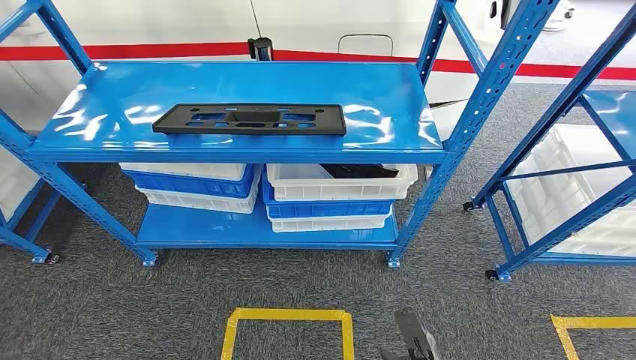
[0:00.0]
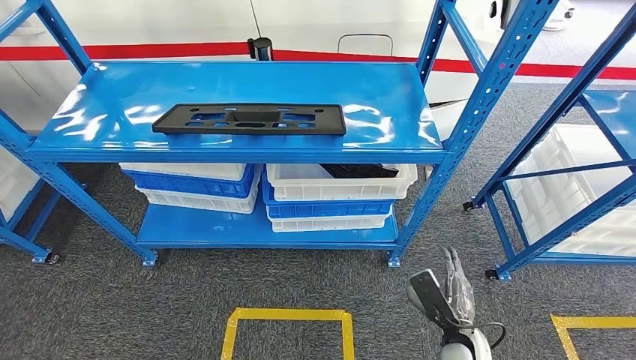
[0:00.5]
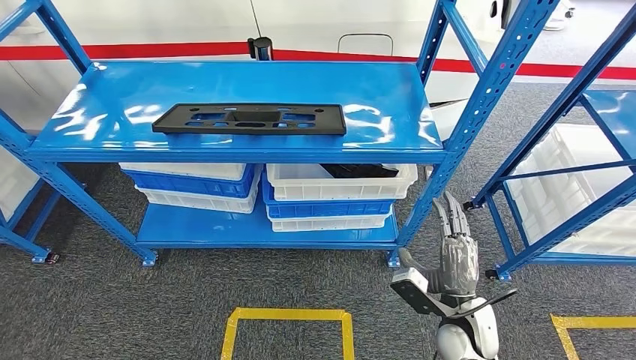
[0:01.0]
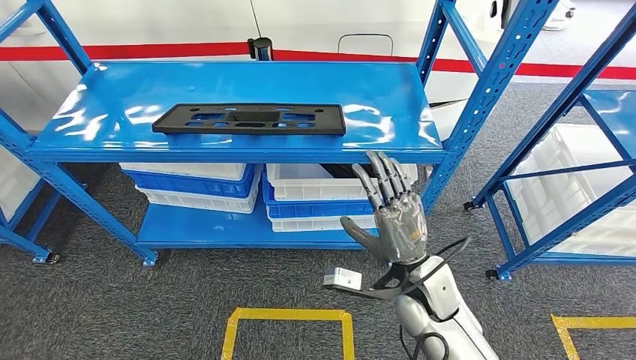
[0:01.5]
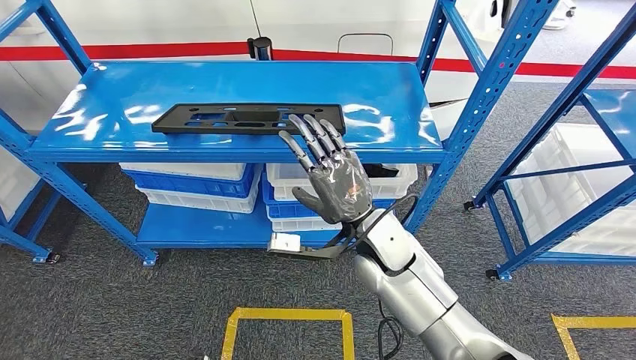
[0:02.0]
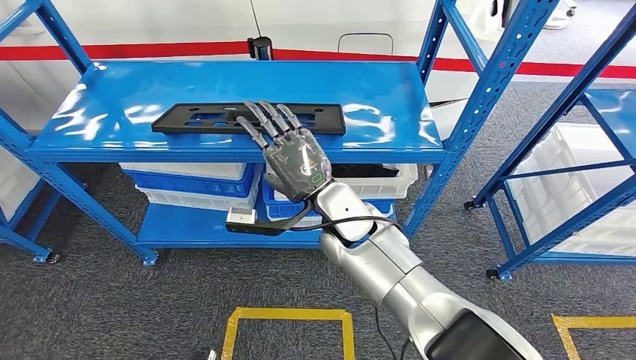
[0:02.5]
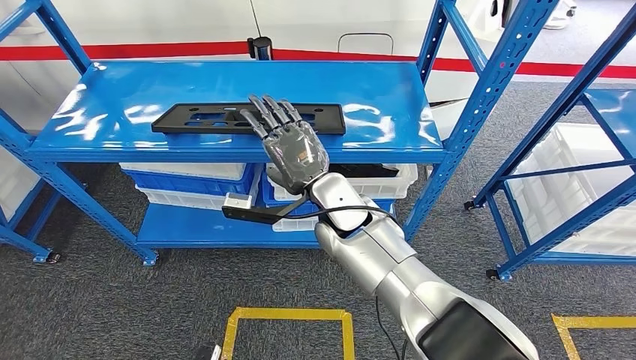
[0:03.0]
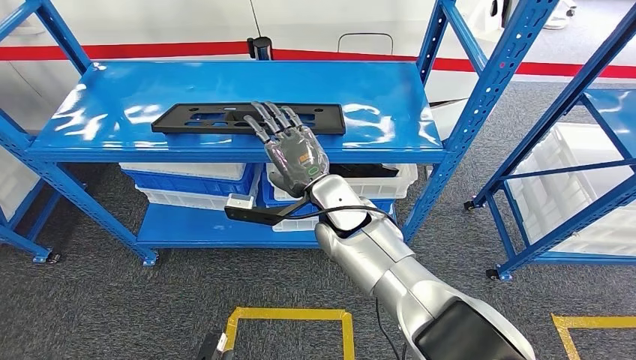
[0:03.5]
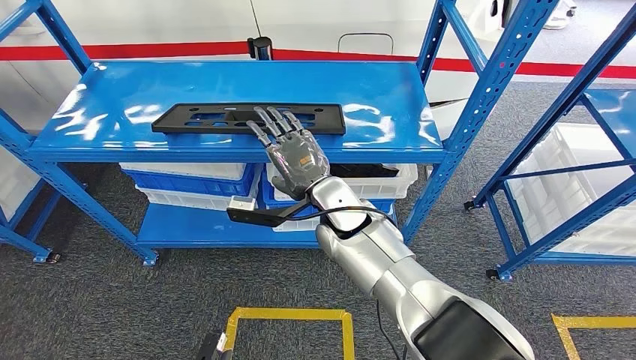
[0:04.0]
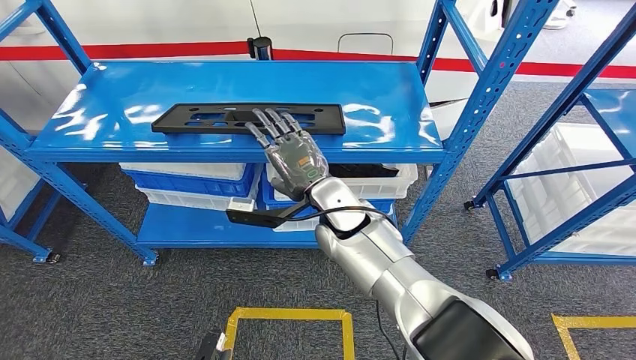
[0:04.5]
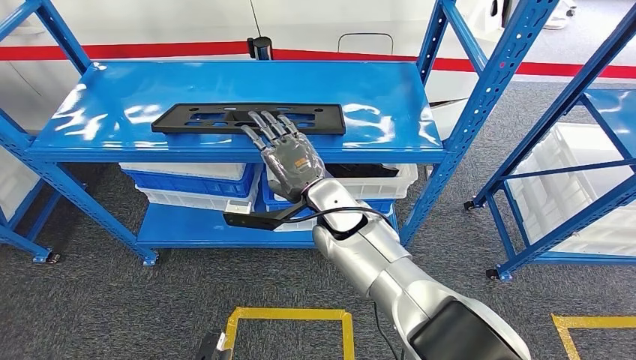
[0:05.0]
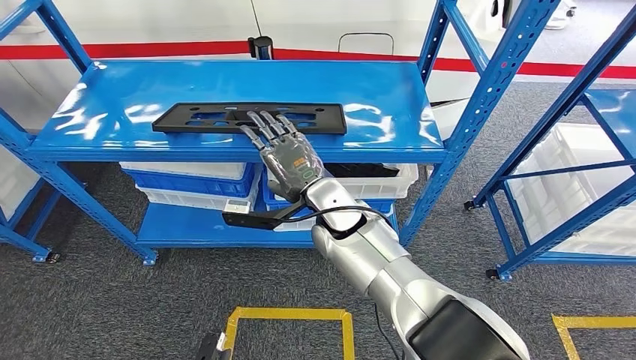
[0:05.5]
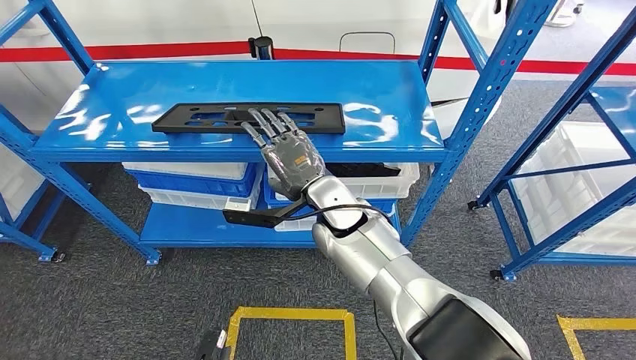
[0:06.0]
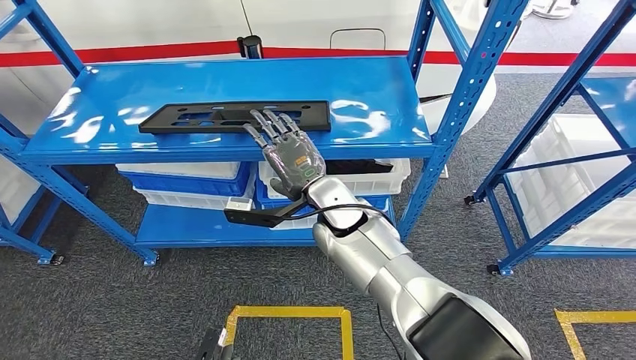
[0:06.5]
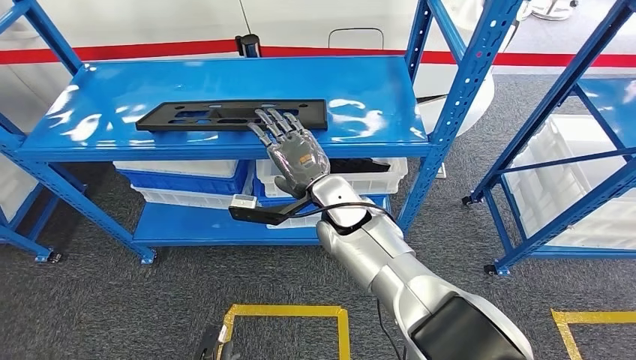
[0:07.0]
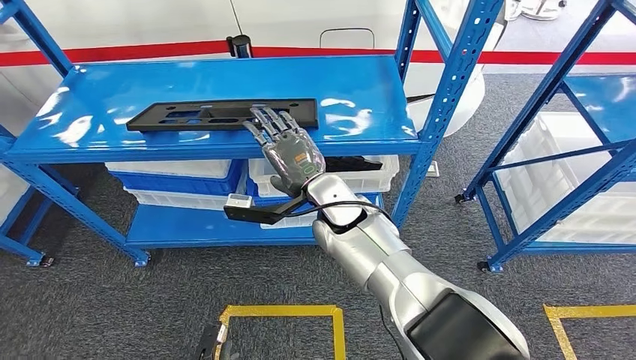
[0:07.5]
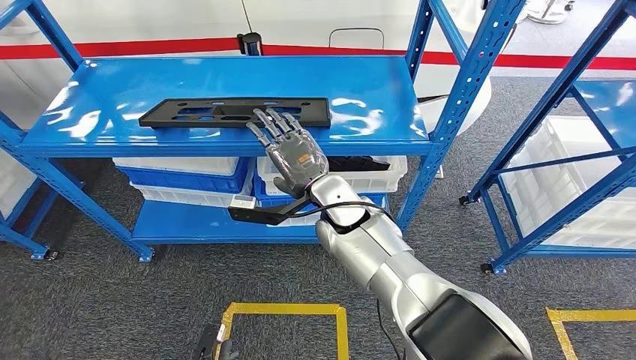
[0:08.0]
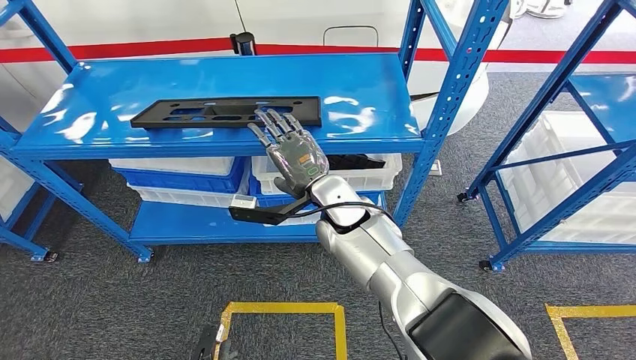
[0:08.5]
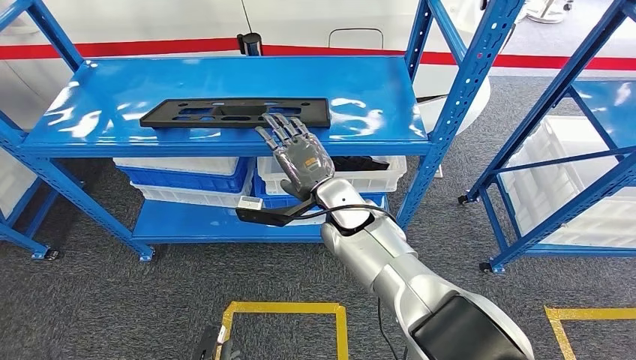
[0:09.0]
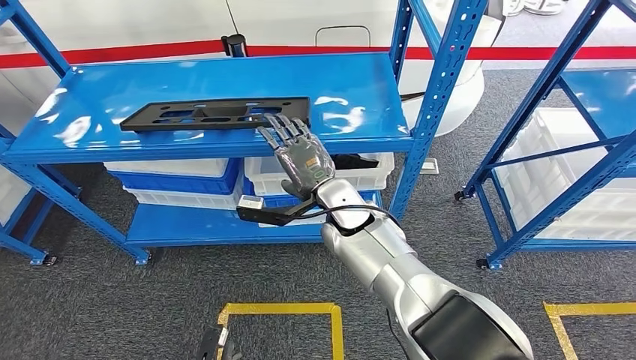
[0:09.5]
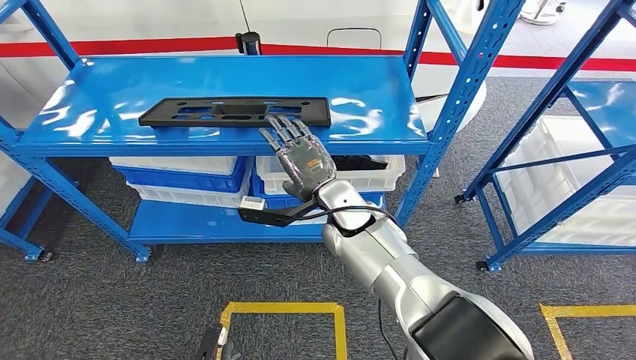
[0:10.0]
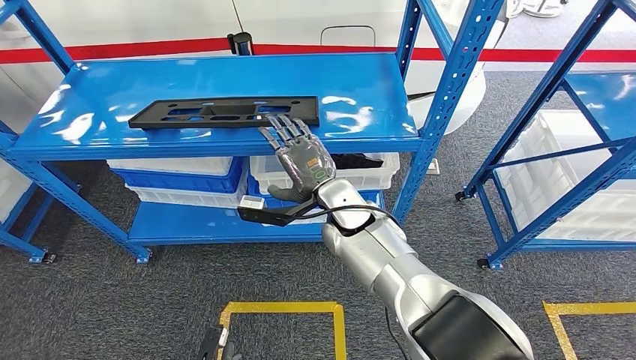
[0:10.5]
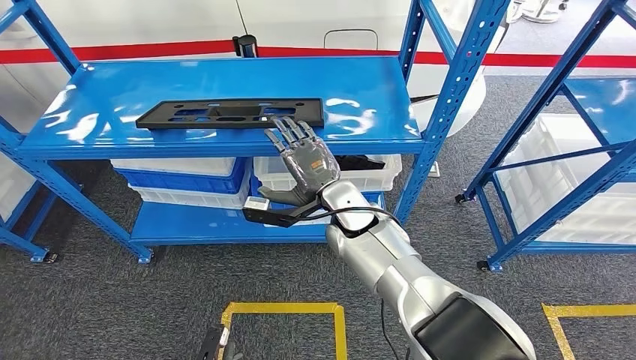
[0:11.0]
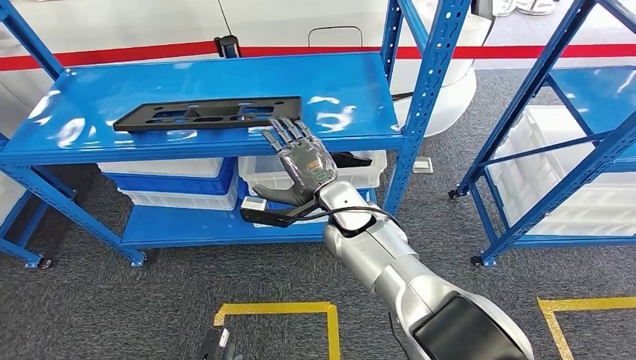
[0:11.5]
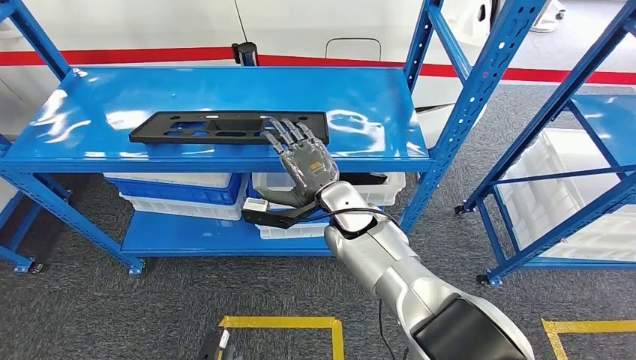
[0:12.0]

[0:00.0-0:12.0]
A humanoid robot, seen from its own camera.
0:02.0 to 0:04.0: The right hand shifts some 5 cm to the left.
0:04.0 to 0:06.0: Both hands stay put.
0:08.0 to 0:10.0: The hands make only small movements.

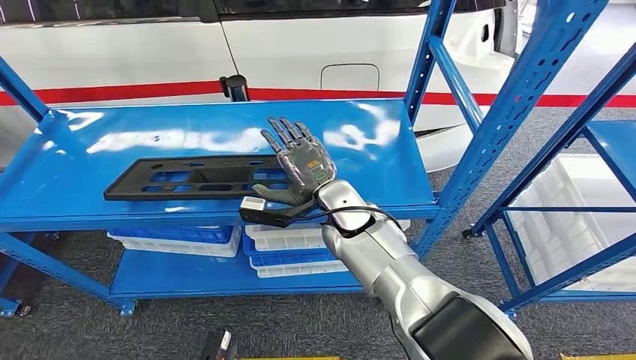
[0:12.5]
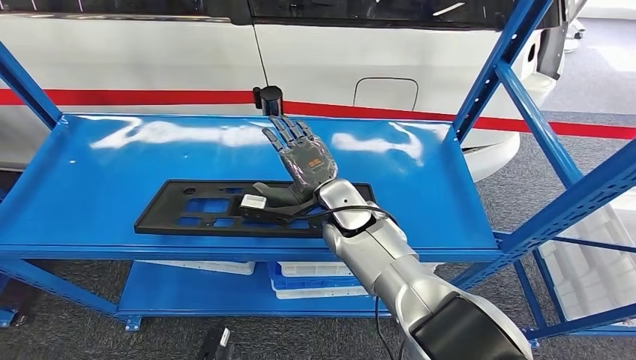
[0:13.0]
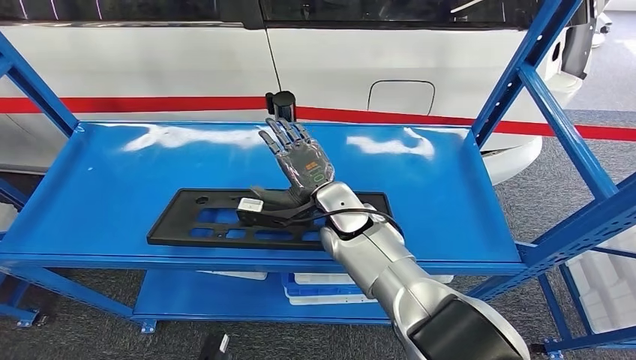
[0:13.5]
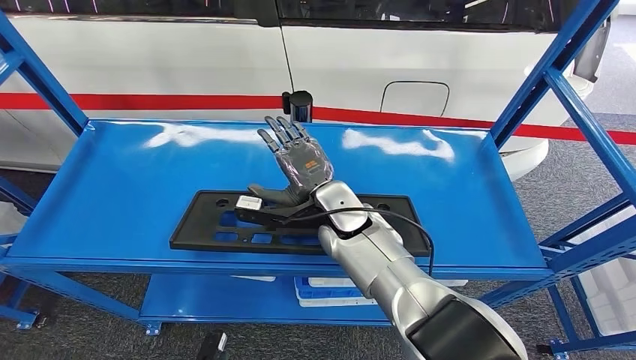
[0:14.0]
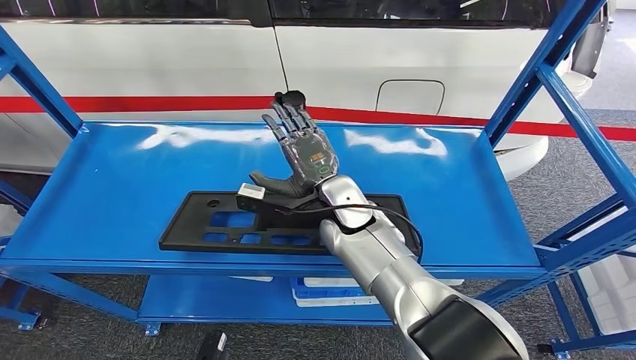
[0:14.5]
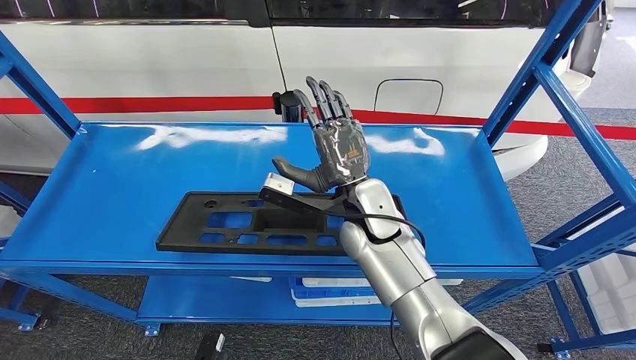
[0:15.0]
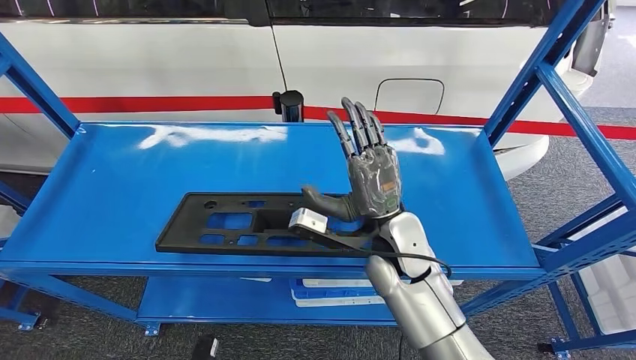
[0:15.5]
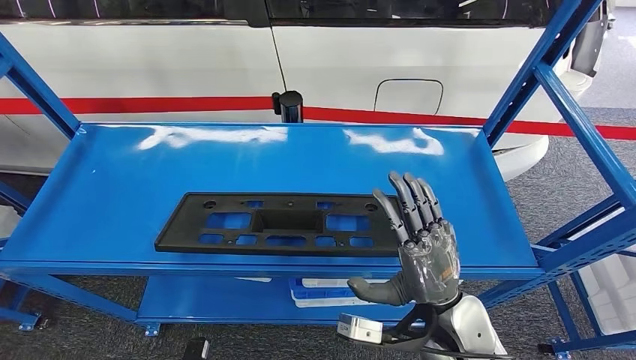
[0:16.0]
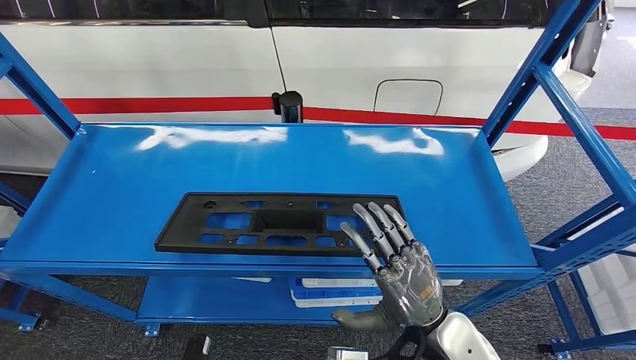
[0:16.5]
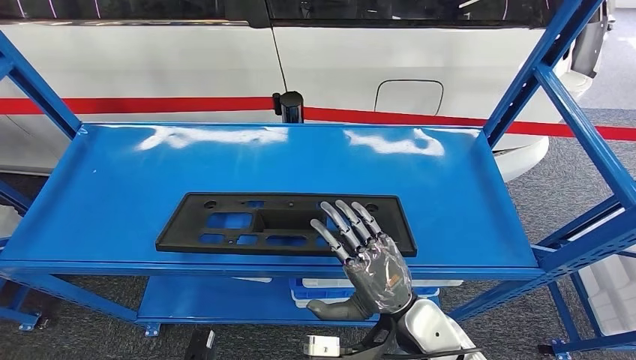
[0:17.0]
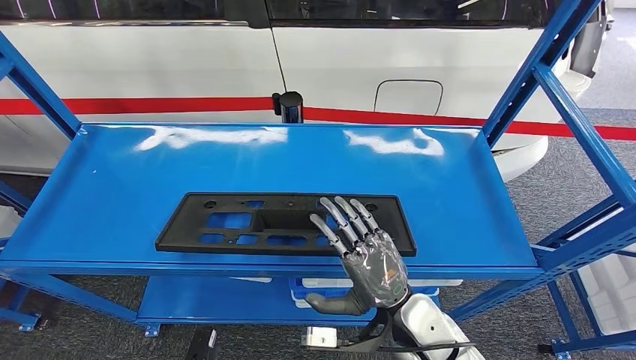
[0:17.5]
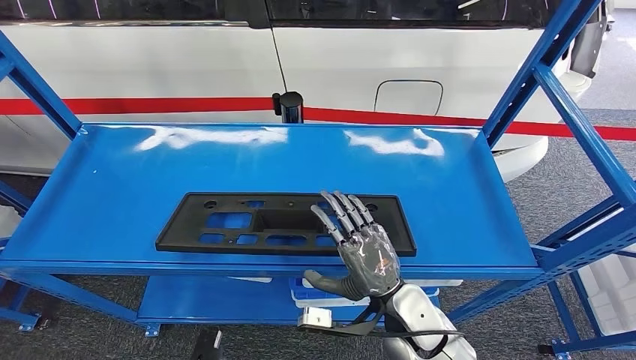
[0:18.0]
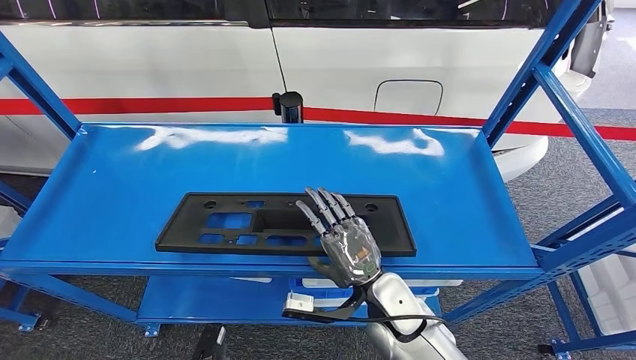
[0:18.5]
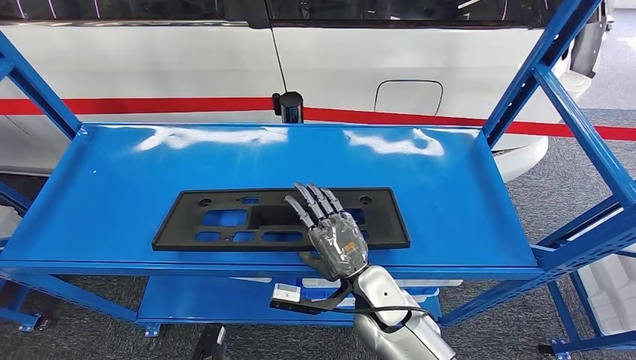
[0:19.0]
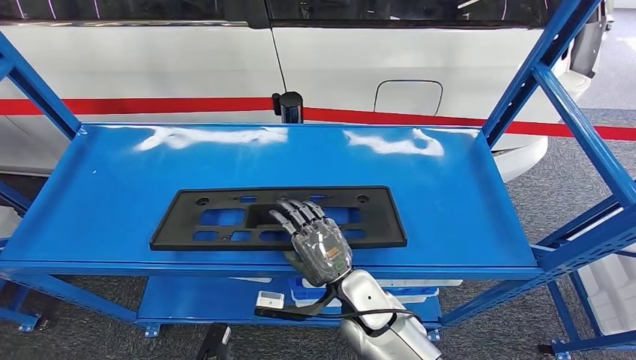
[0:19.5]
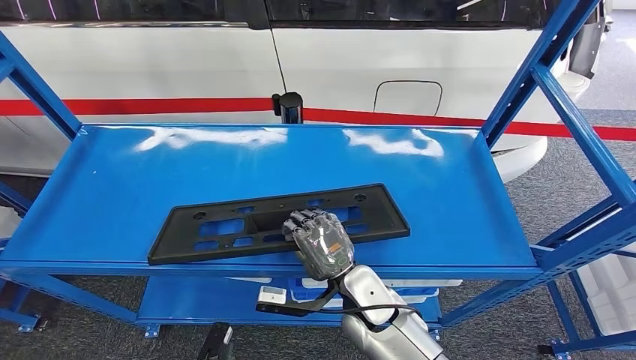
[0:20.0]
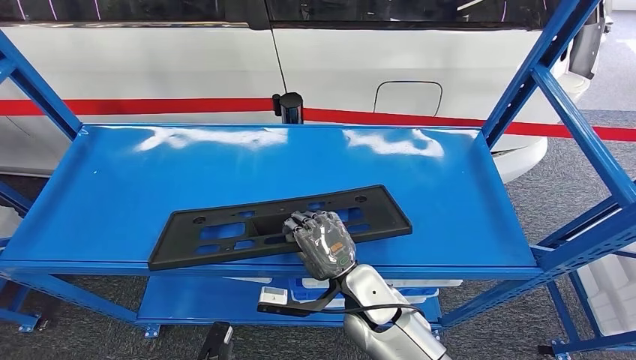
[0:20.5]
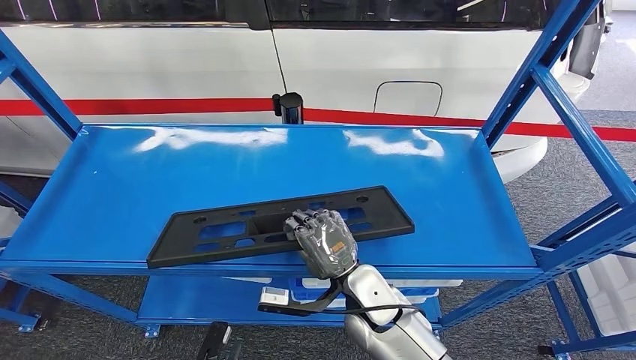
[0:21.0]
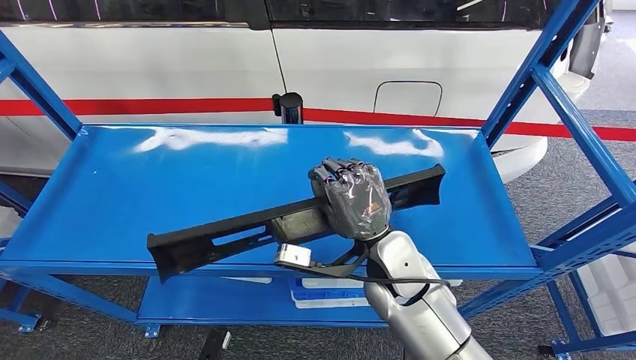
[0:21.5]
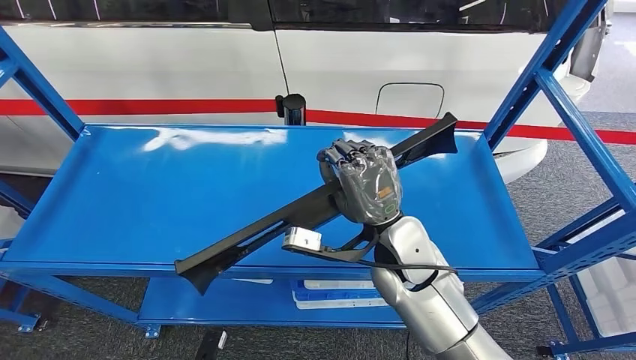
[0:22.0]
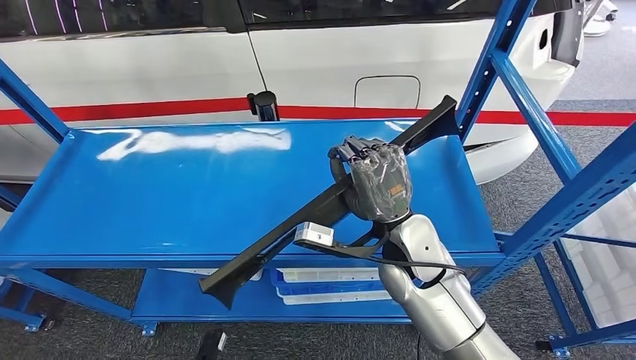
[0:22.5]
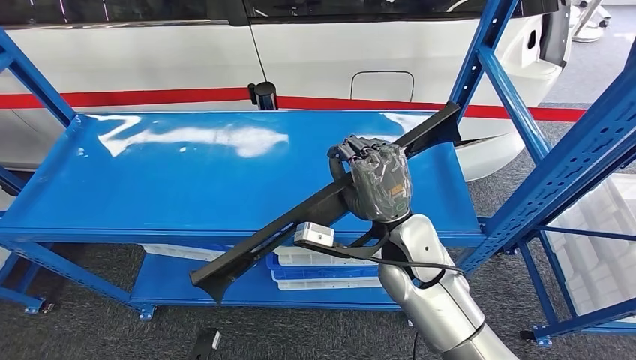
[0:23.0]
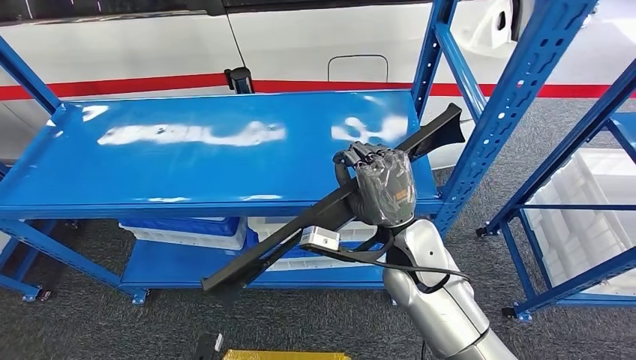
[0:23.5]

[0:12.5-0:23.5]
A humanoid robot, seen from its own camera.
Step, 0:12.5 to 0:21.5: Pick up the large material from the shelf.
0:14.5 to 0:16.0: The right hand travels backward and to the right by about 20 cm.
0:16.0 to 0:18.0: The right hand moves downward, roughly 5 cm.
0:18.0 to 0:20.0: The right hand is displaced to the left by about 5 cm.
0:20.0 to 0:21.5: The right hand goes some 10 cm upward.
